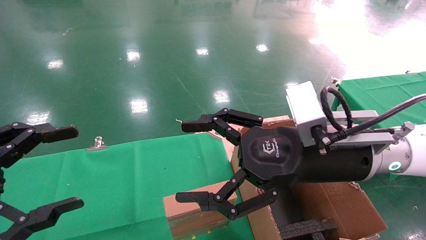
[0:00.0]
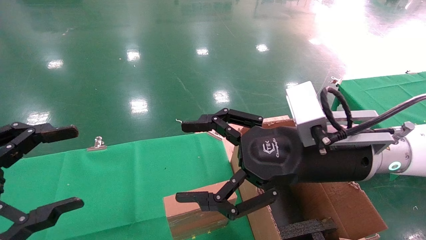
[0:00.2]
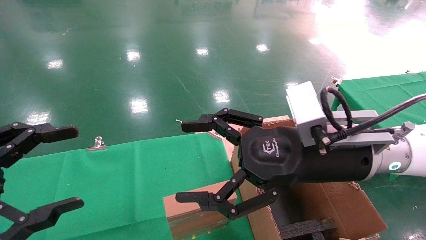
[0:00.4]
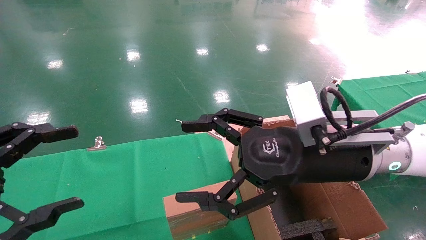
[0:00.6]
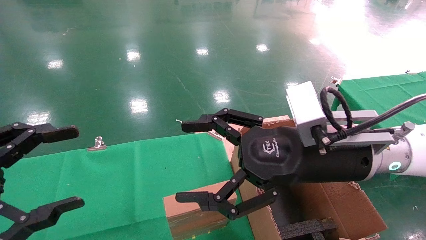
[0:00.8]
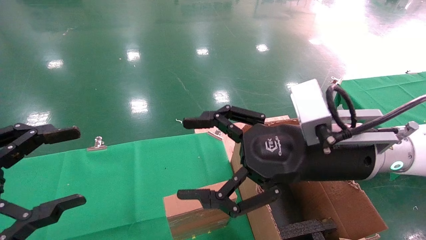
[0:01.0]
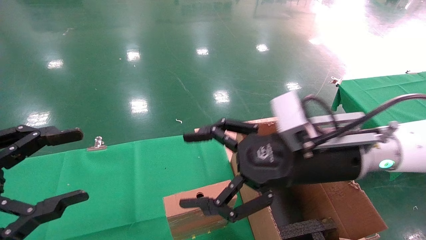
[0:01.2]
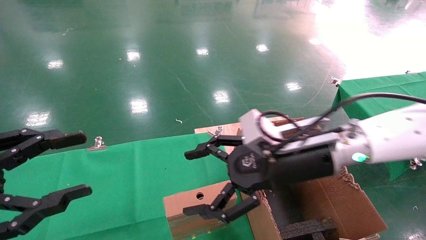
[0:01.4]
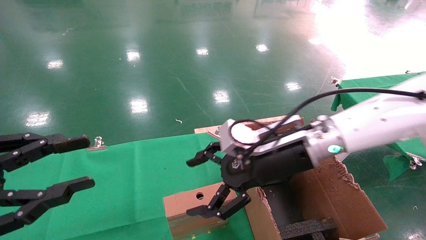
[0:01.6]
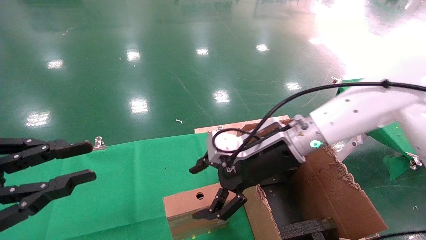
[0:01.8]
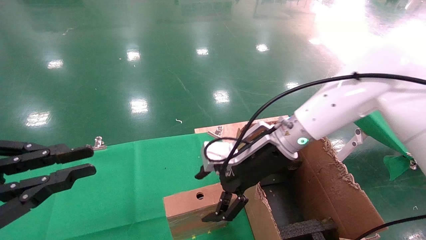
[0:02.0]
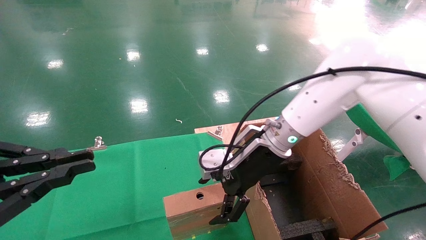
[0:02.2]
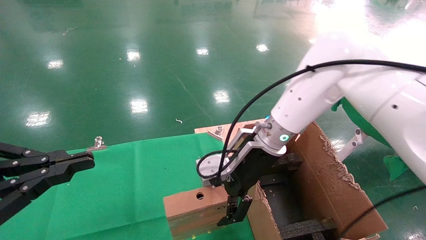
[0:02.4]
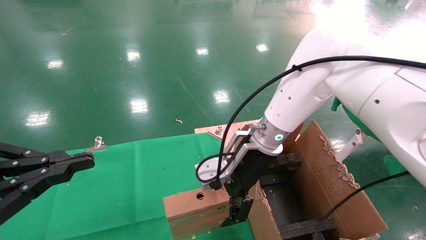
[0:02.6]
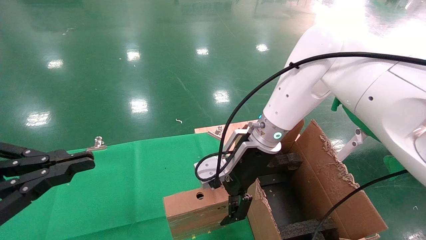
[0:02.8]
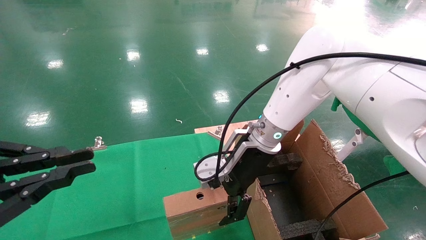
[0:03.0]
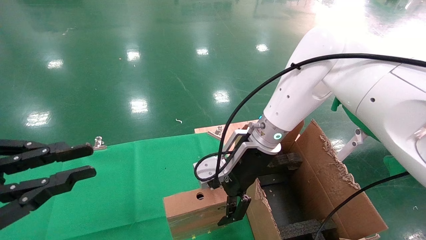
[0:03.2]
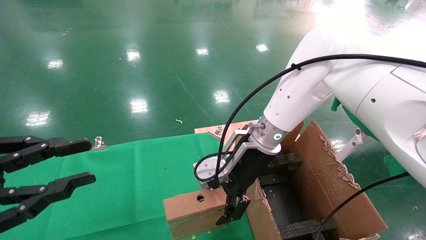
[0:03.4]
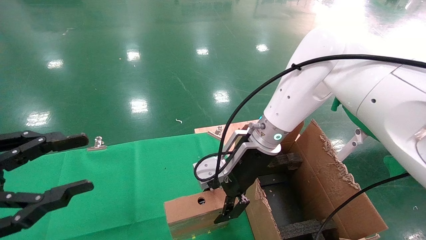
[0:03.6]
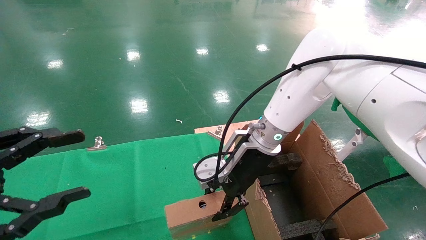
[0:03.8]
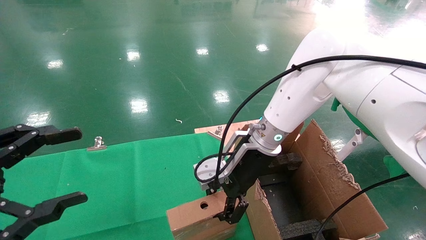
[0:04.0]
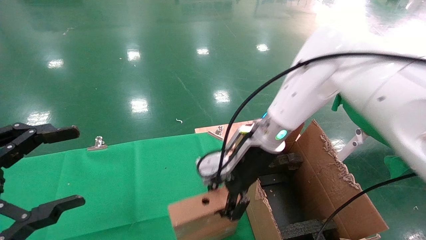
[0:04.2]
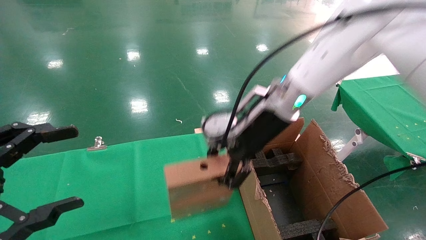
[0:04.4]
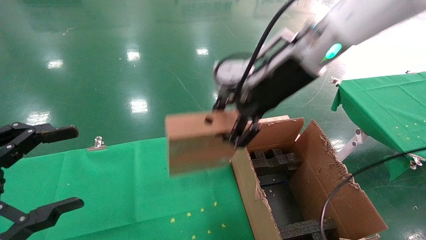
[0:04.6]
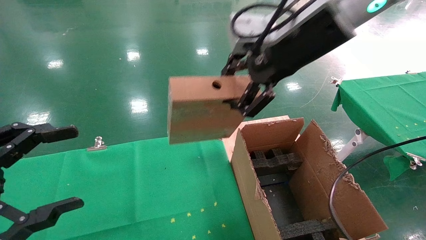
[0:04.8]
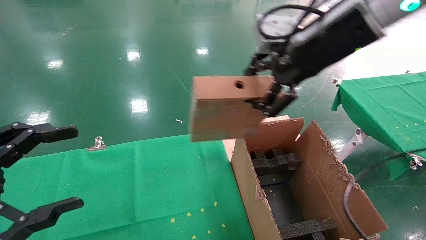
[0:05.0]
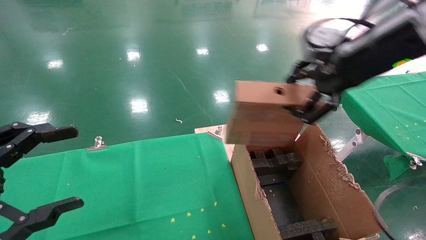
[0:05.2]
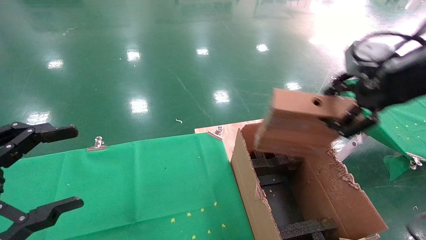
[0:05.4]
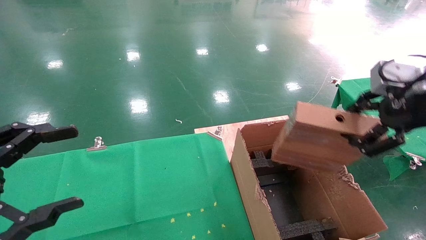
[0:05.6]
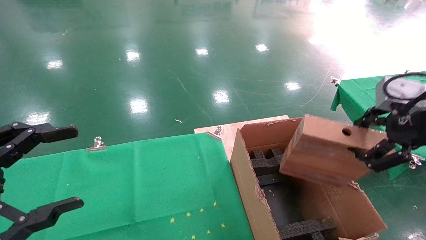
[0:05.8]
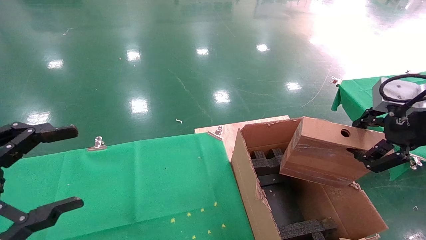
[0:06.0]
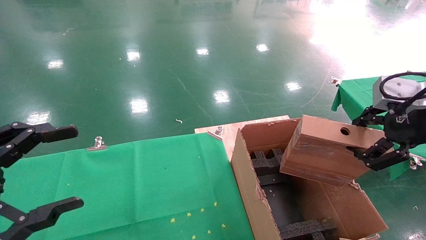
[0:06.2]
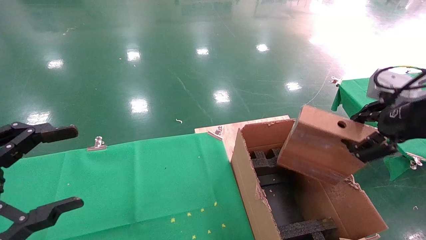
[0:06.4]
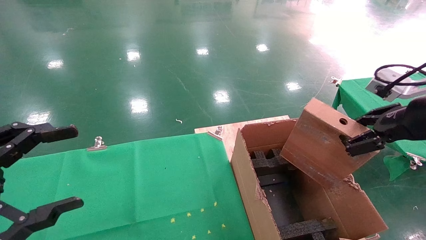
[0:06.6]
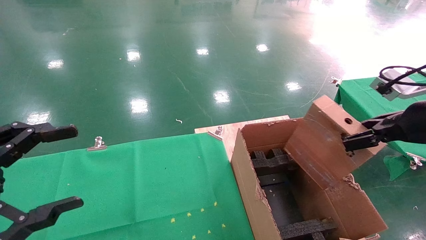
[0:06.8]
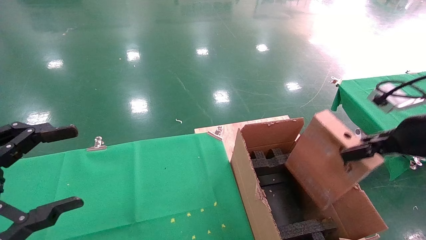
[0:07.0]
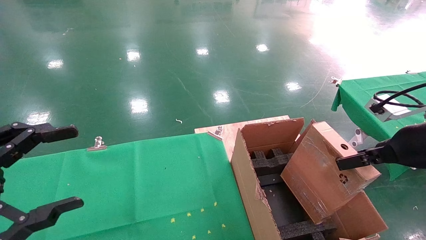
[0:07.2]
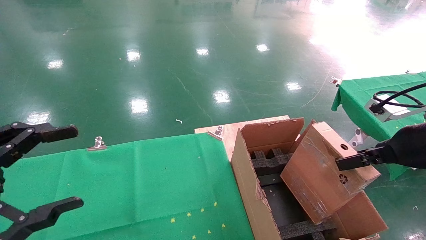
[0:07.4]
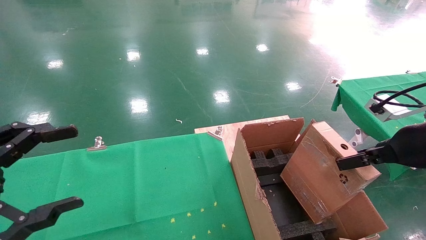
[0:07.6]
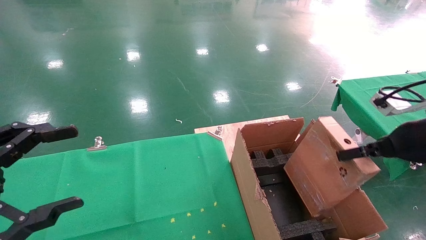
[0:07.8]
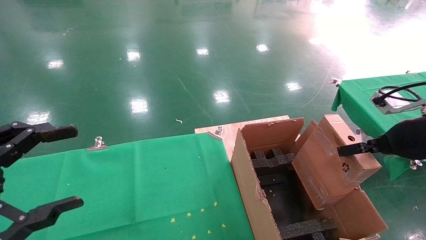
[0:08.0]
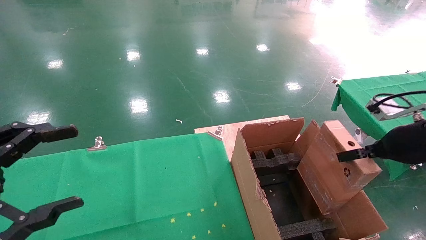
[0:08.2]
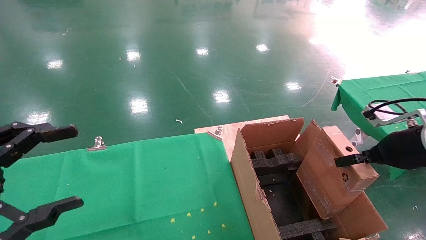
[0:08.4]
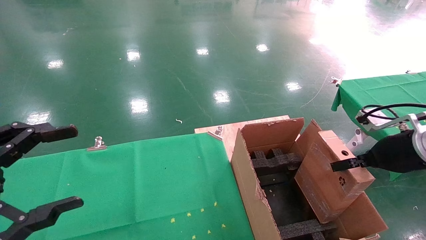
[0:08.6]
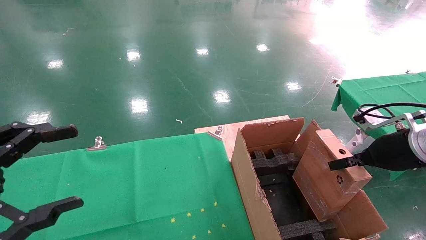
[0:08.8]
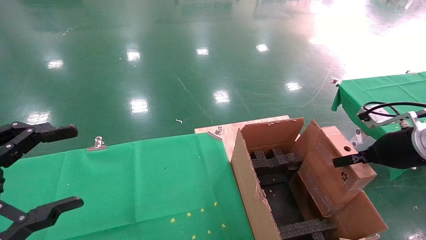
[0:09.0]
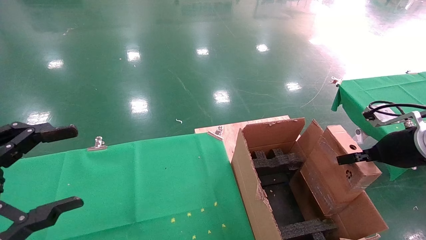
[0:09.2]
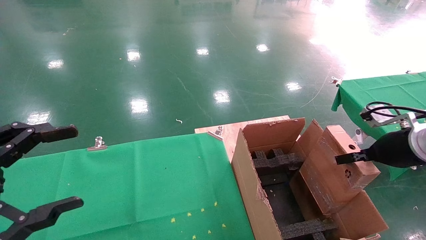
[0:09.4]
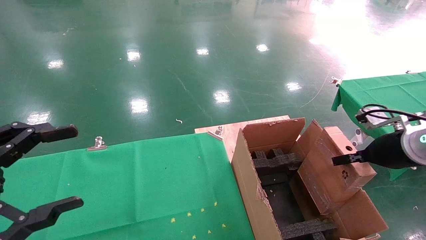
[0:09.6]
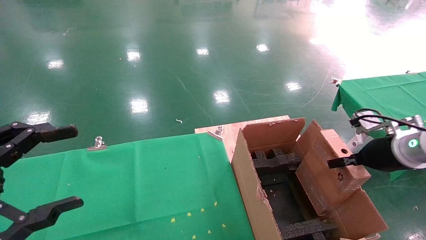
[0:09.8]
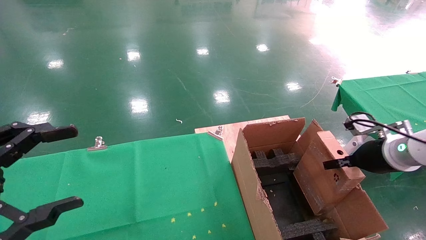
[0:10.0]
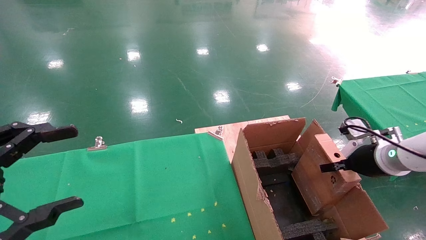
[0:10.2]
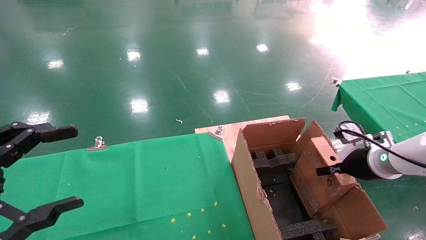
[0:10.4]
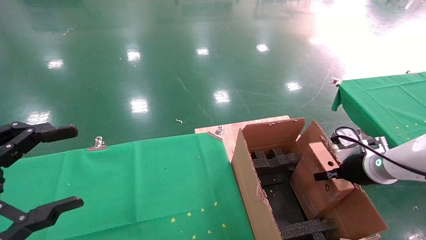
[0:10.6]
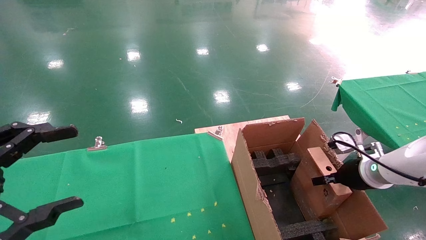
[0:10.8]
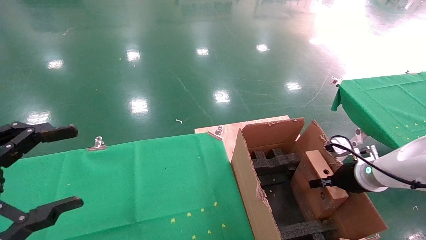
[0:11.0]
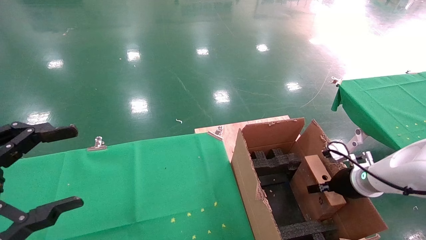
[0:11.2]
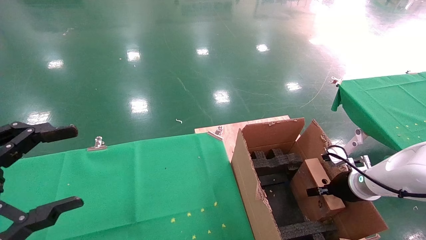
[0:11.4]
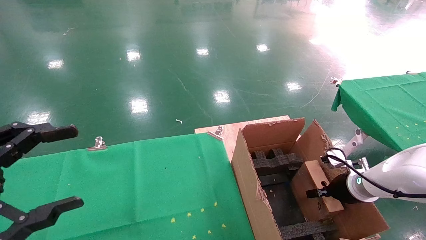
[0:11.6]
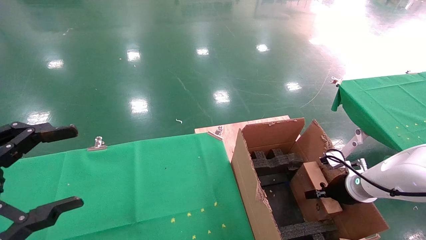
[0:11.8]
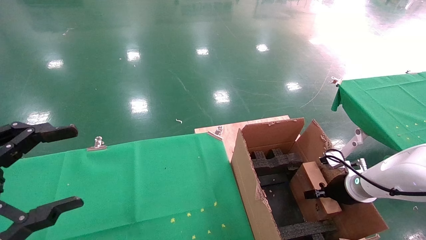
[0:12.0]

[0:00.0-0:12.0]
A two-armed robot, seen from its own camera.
Task of the whole recording: using a robotic arm to pick up a cardboard box and palace it the carton.
Step, 0:01.2 to 0:04.2: Pick up the mouse and the power cord paper box.
0:00.0 to 0:01.6: The right gripper moves forward, roughly 10 cm. The left gripper closes its fingers.
0:01.6 to 0:03.0: The right gripper heads forward, covering approximately 5 cm, while the left gripper closes its fingers.
0:03.0 to 0:04.4: The left gripper opens; the right gripper heads upward, covering about 10 cm, and closes up.
0:04.4 to 0:06.0: The right gripper shifts approximately 30 cm to the right and backward.
0:06.0 to 0:07.6: The right gripper moves downward, approximately 5 cm.
0:07.6 to 0:09.0: The right gripper ends up some 5 cm from where it was.
0:09.0 to 0:10.4: The right gripper is displaced downward and forward by approximately 10 cm.
0:10.4 to 0:12.0: The right gripper is displaced downward by approximately 10 cm.

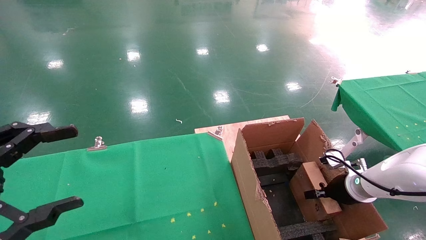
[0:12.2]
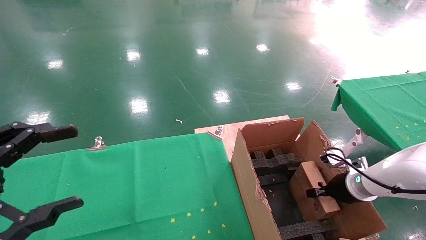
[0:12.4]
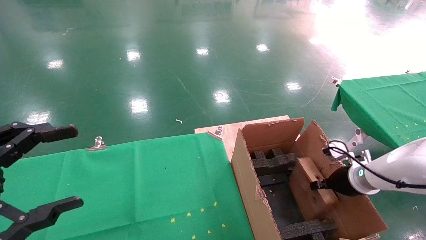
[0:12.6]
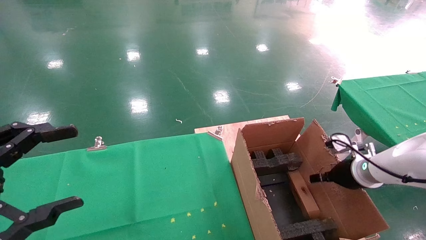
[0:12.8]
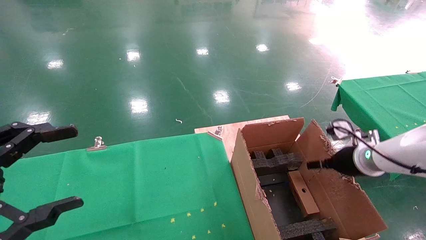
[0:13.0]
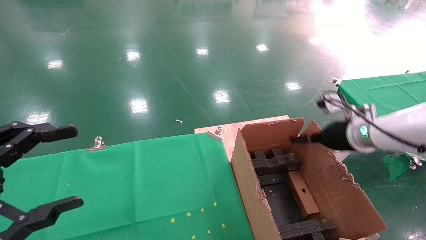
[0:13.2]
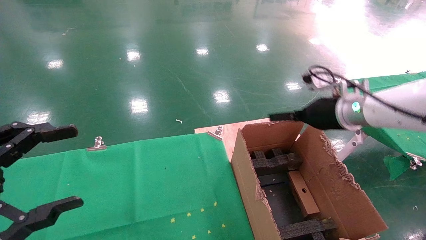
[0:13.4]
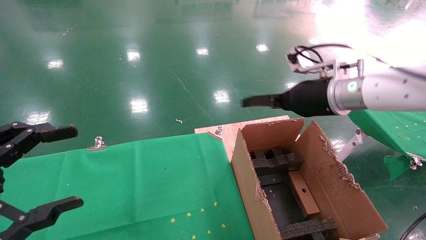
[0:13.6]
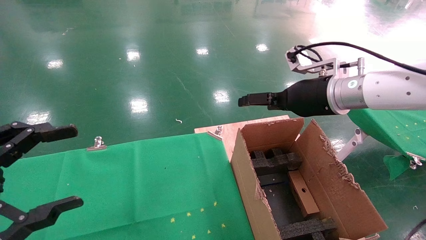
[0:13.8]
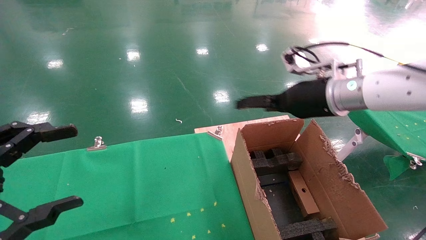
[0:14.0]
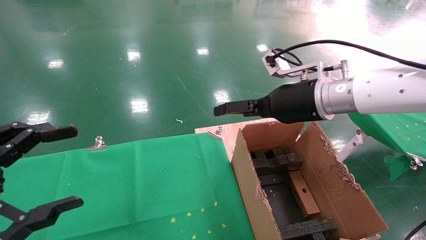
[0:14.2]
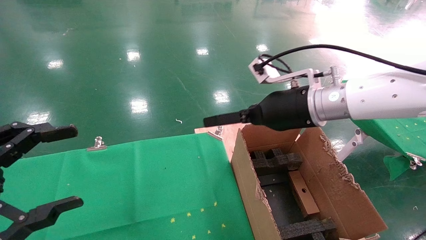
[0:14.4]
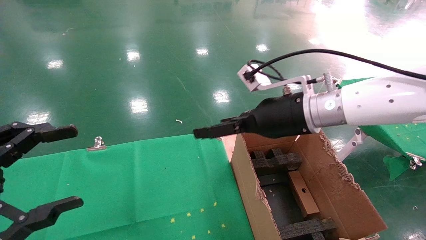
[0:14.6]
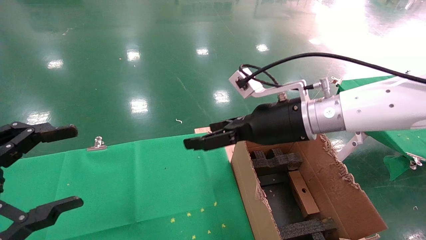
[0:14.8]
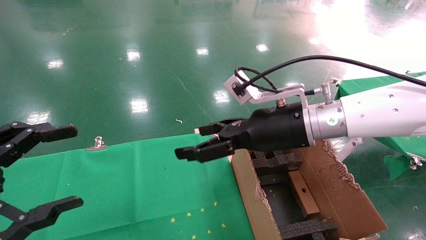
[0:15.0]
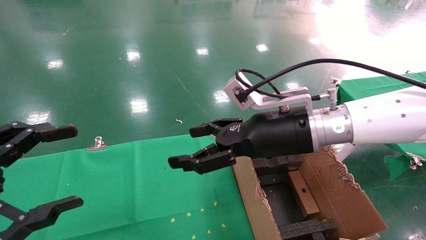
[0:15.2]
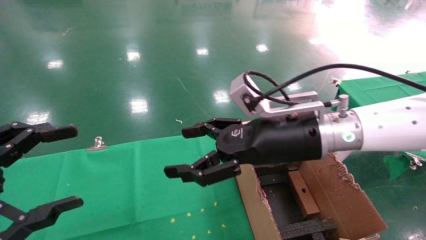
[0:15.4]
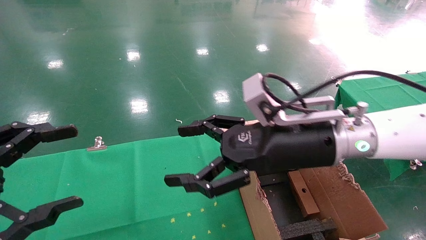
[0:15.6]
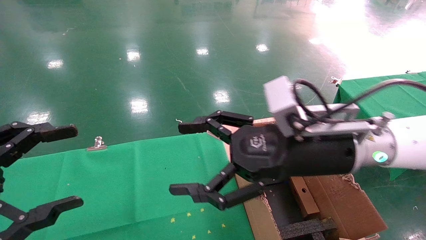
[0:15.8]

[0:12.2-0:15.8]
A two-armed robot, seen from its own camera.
Task of the whole recording: using a robotic arm to pick up a cardboard box and palace it the carton.
0:12.2 to 0:14.0: The right gripper is displaced upward and to the left by roughly 25 cm, and opens.
0:14.0 to 0:15.8: The right gripper heads backward and to the left, covering roughly 10 cm.

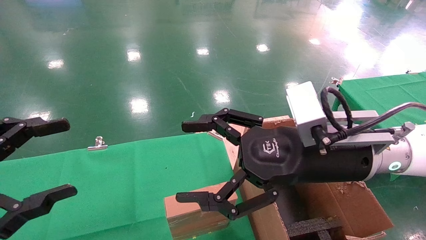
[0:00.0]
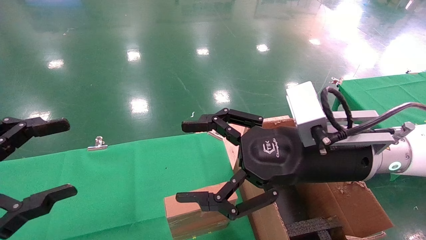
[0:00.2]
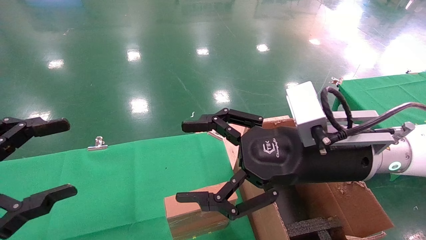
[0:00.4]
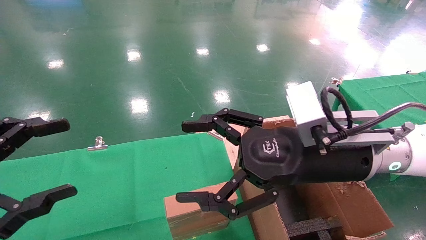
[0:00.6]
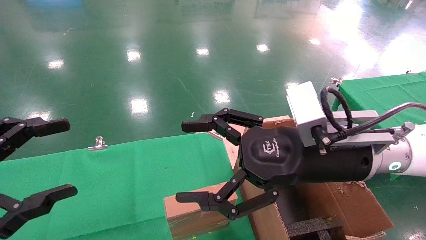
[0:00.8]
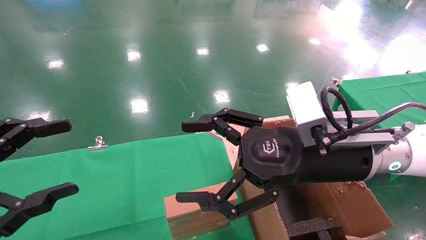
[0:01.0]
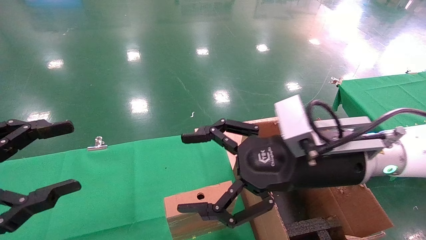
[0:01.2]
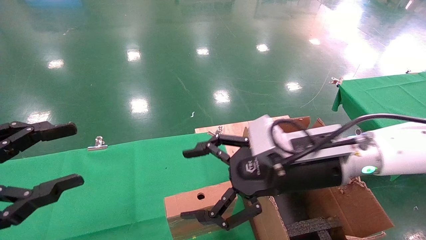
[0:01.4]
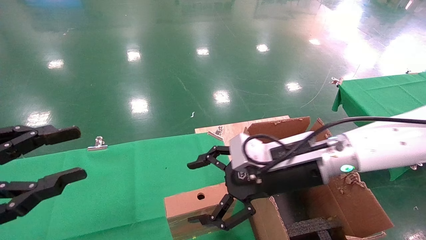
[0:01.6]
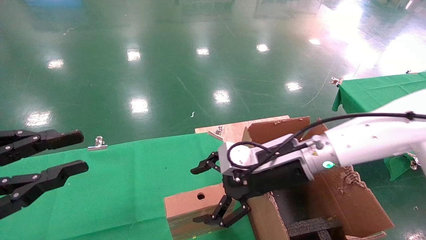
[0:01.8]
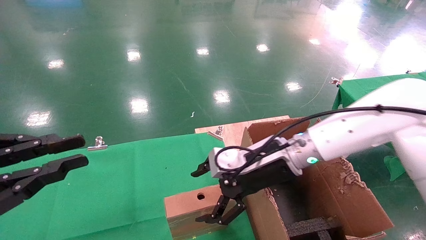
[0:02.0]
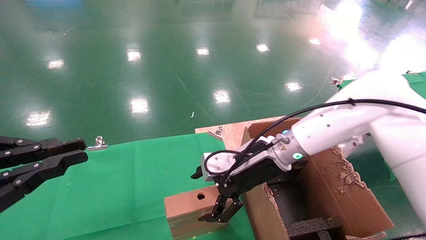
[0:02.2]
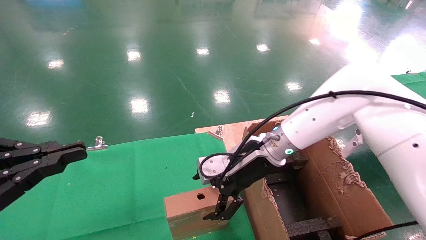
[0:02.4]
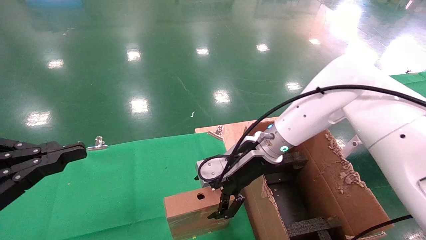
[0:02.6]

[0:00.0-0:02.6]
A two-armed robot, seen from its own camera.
Task of the whole recording: using a robotic arm to pick up a cardboard box and palace it the carton.
0:00.0 to 0:01.2: The grippers move only a little.
0:01.2 to 0:02.6: The left gripper closes up; the right gripper moves forward, roughly 15 cm.
